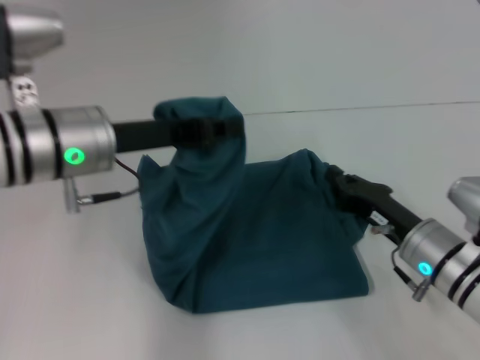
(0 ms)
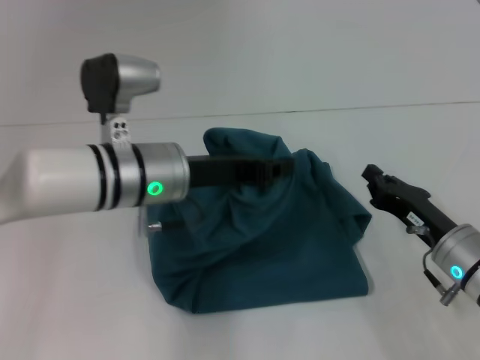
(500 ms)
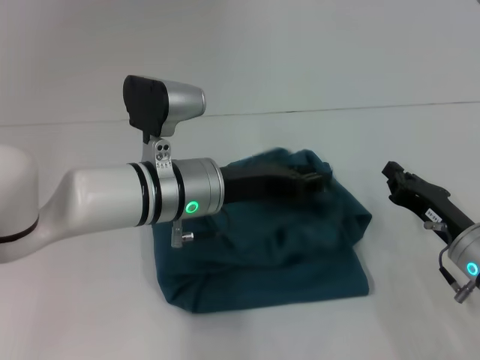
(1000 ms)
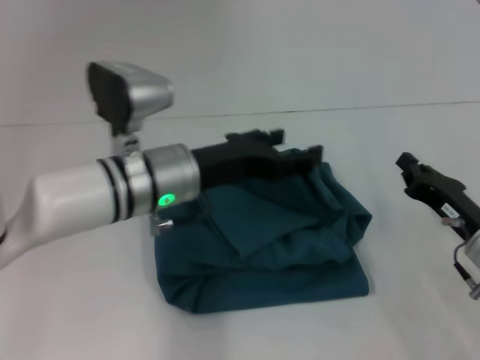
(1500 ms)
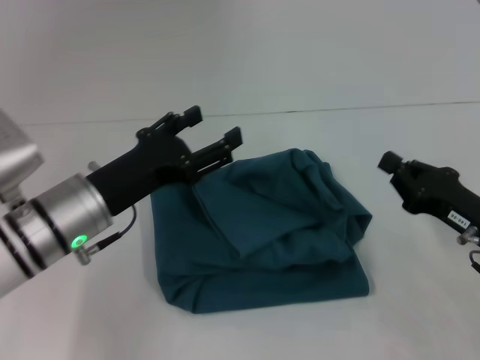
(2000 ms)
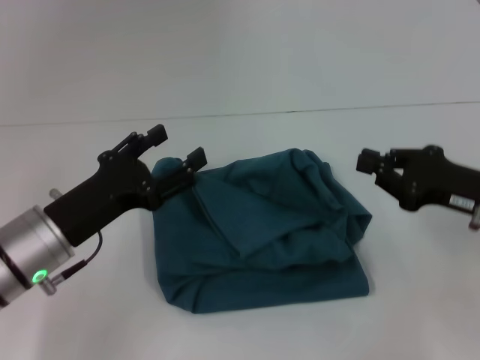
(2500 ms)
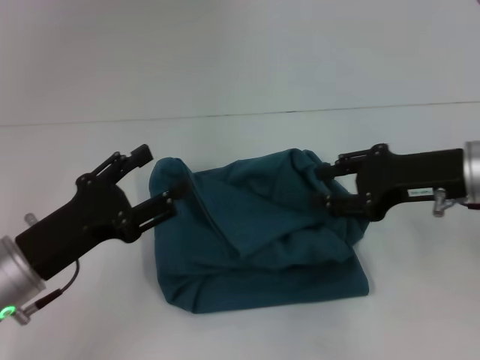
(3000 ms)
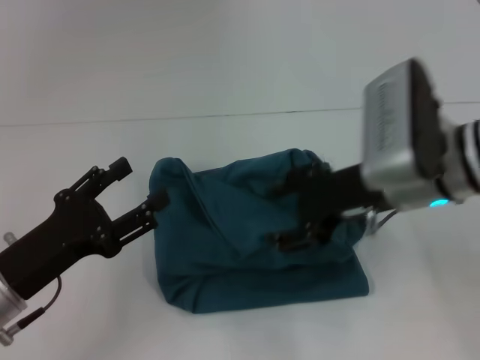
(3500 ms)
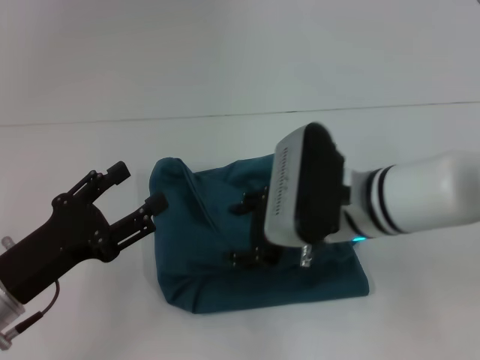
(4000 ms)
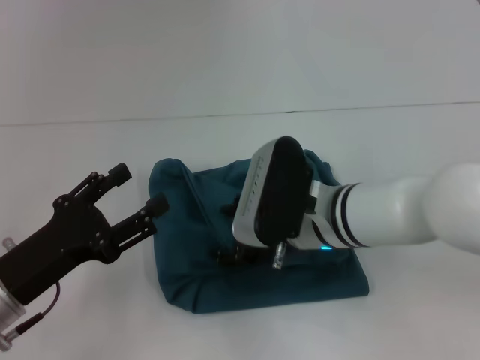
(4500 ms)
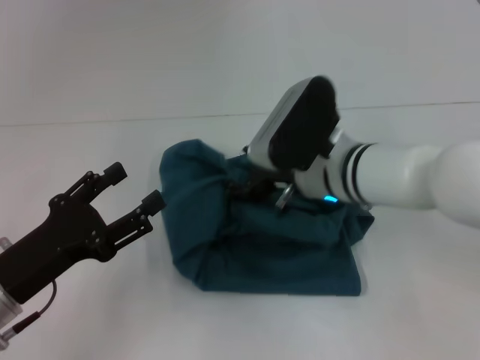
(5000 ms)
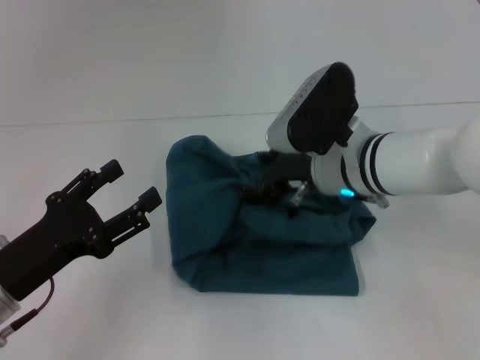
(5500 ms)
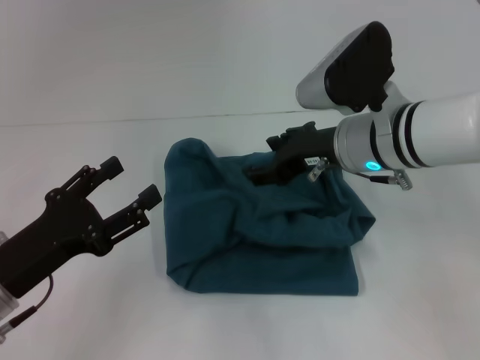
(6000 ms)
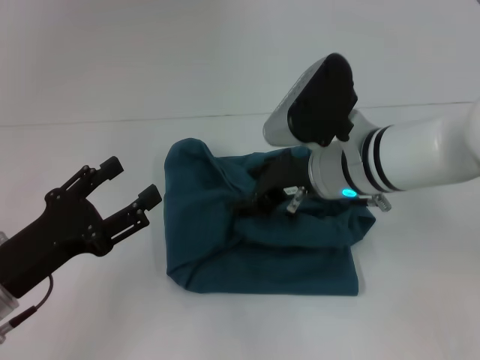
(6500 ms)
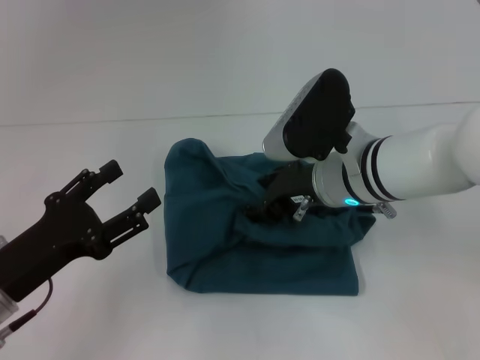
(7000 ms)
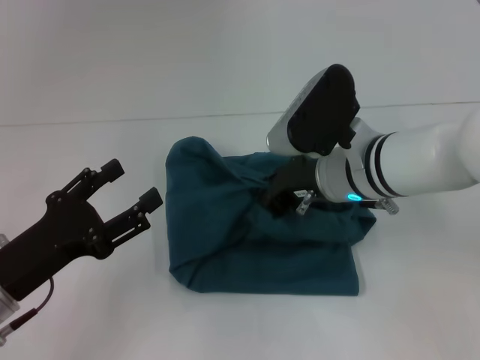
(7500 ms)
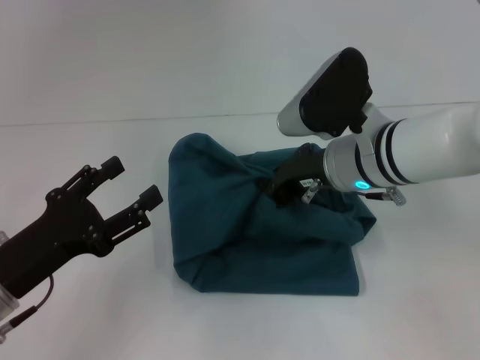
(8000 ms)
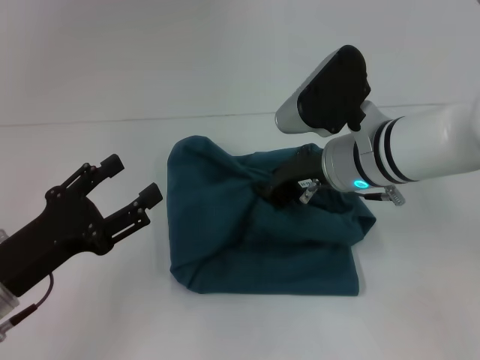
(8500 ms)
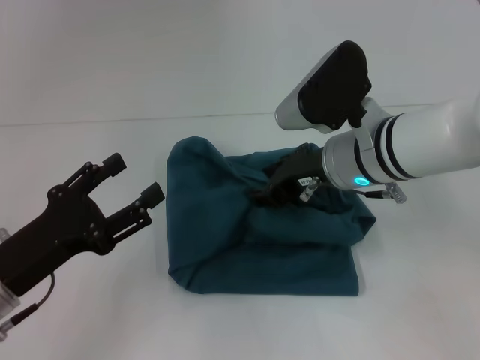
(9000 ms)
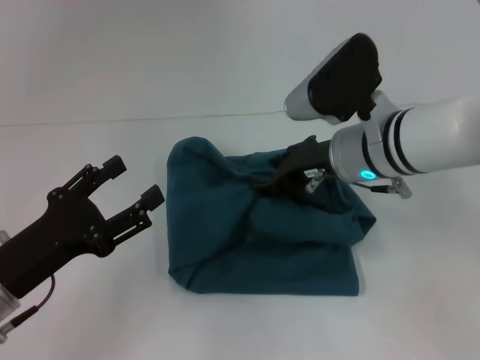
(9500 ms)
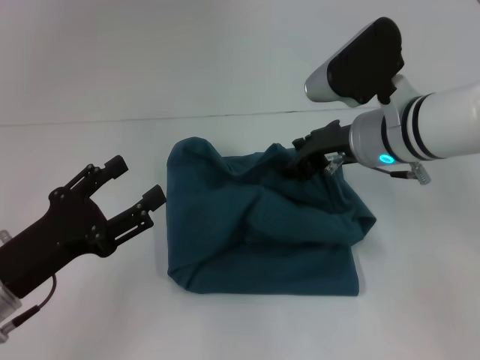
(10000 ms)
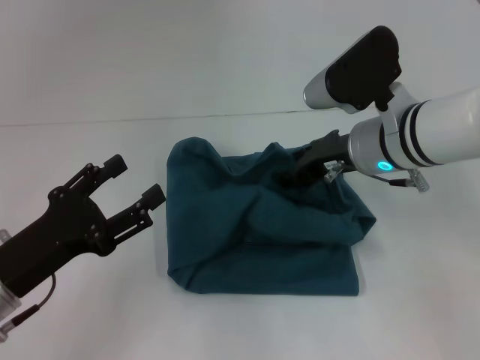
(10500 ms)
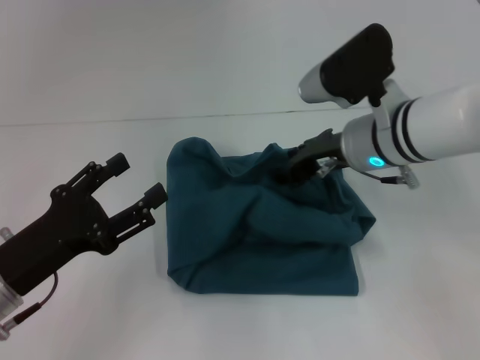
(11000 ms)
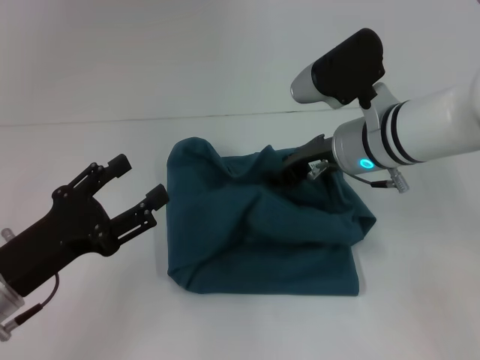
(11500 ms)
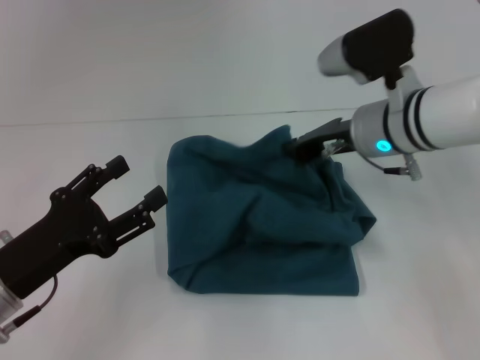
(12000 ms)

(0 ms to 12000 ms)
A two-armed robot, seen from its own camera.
0 ms - 2000 ms: The right gripper moves to the right, roughly 5 cm. Meanwhile the left gripper travels downward by approximately 10 cm, travels to the right and back again, approximately 10 cm each way, and opens its fingers.
2000 ms - 4000 ms: The left gripper goes roughly 10 cm backward and to the left, while the right gripper heads to the left and upward, covering some 20 cm, and opens.
4000 ms - 6000 ms: The right gripper moves roughly 5 cm.
6000 ms - 8000 ms: The right gripper closes.
8000 ms - 10000 ms: The right gripper opens up.
10000 ms - 12000 ms: The right gripper closes.

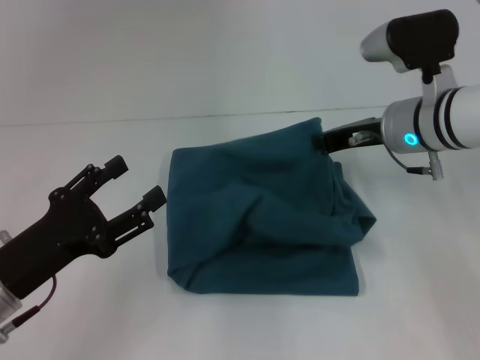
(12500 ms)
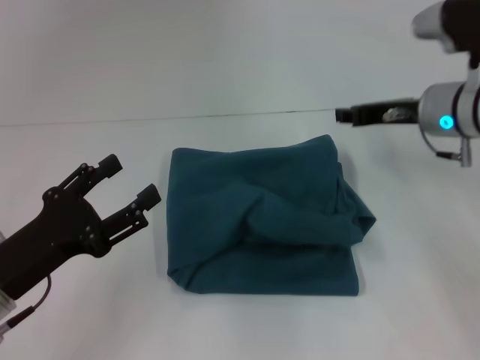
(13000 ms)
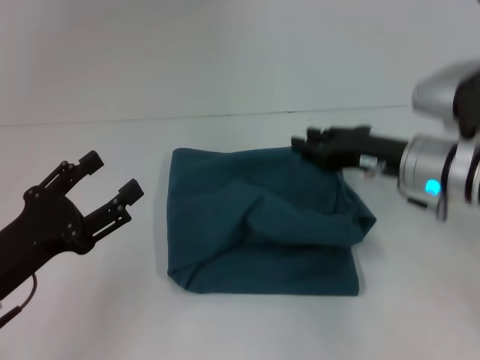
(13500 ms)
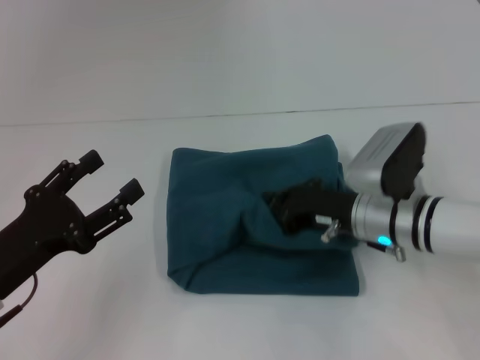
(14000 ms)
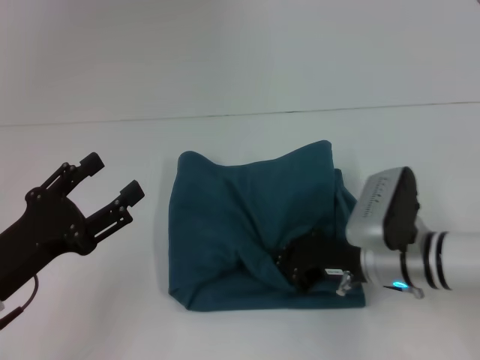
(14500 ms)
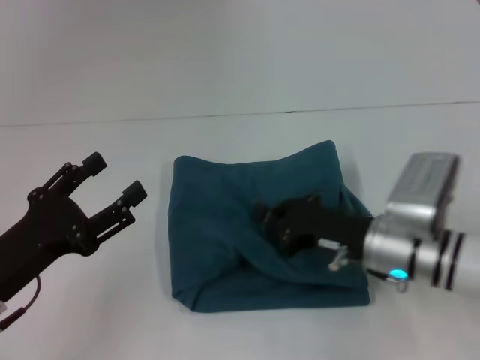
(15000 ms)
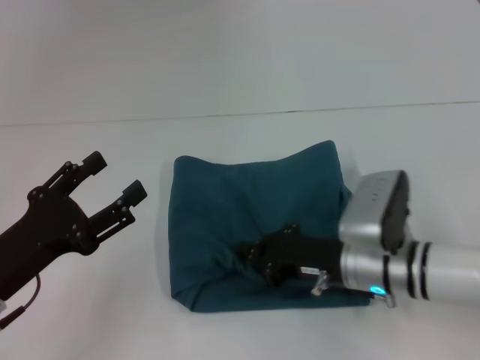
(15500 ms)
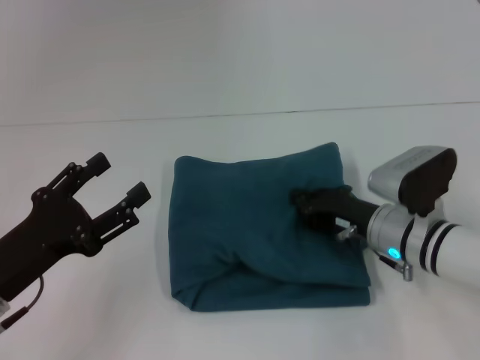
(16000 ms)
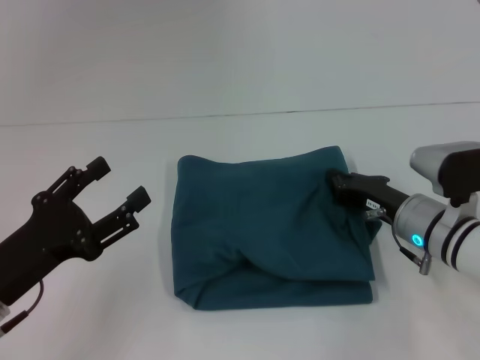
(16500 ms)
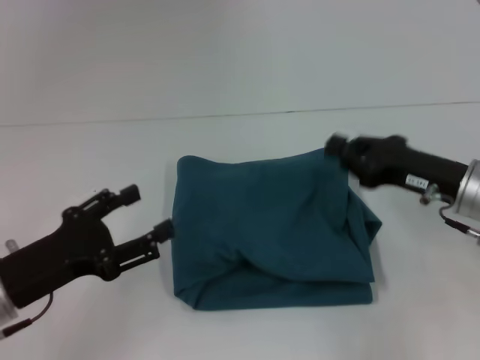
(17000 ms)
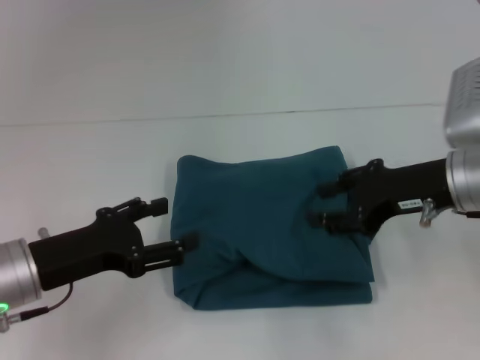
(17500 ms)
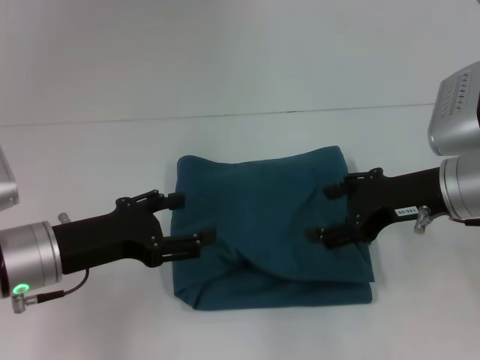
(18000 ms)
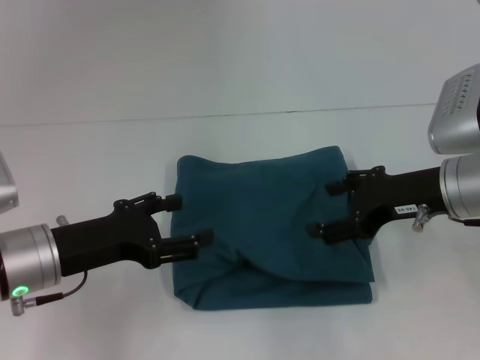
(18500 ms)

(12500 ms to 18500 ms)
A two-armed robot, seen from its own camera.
12500 ms - 14500 ms: The right gripper heads downward and backward, covering about 15 cm, and opens, then closes once more.
16500 ms - 18500 ms: The left gripper goes some 5 cm forward; the right gripper travels upward by some 10 cm, and opens.

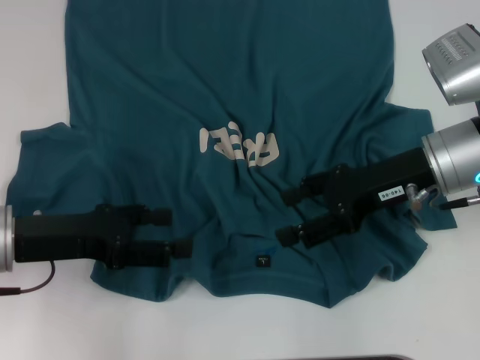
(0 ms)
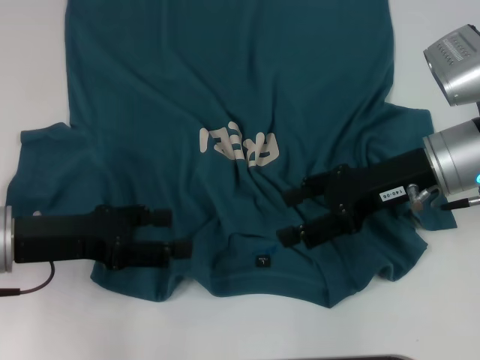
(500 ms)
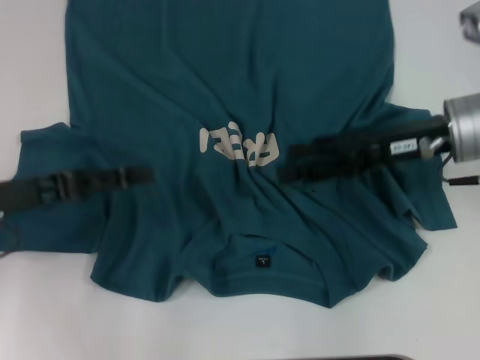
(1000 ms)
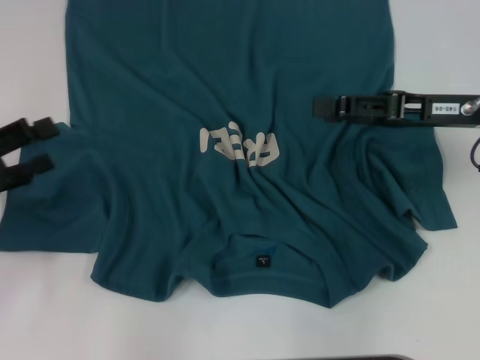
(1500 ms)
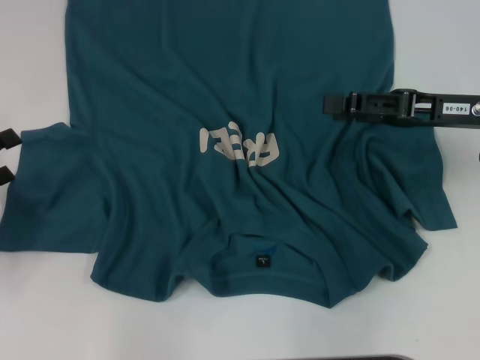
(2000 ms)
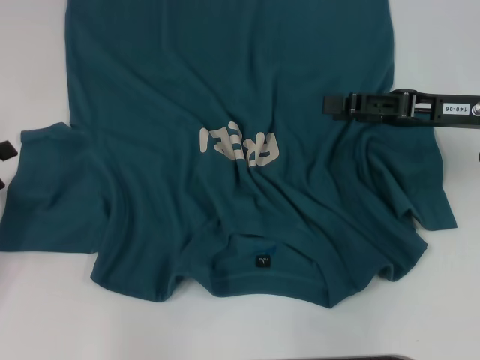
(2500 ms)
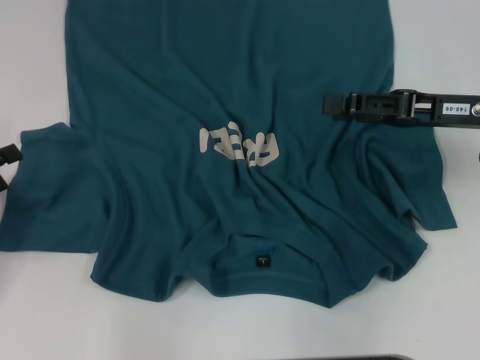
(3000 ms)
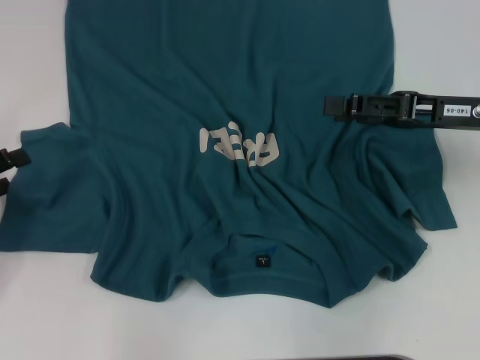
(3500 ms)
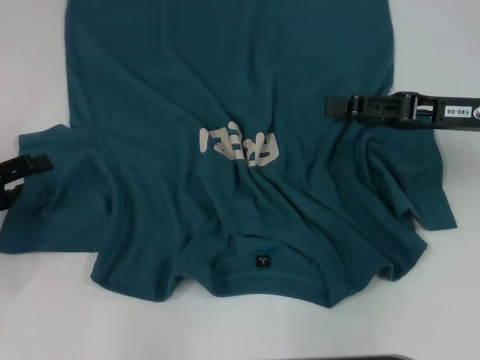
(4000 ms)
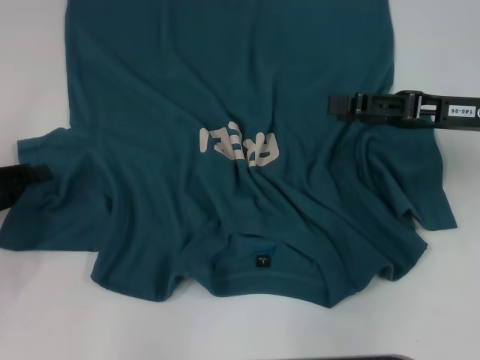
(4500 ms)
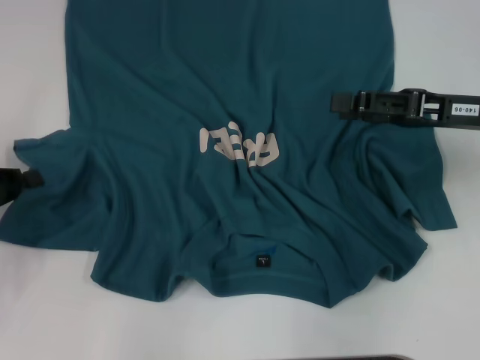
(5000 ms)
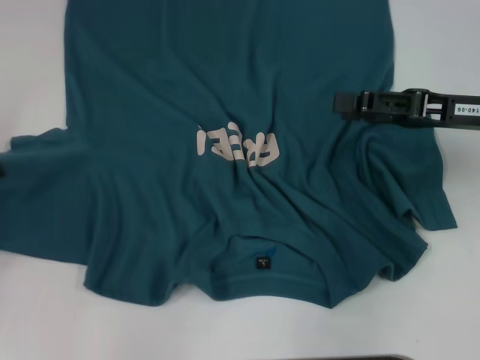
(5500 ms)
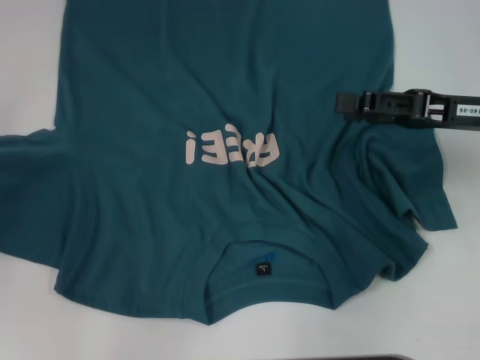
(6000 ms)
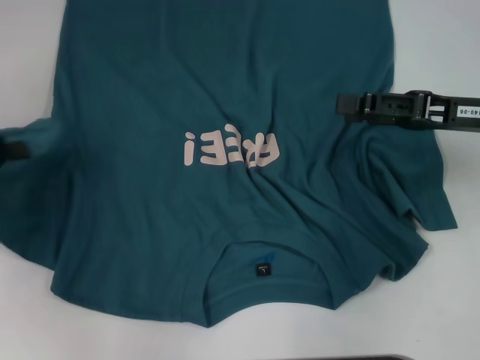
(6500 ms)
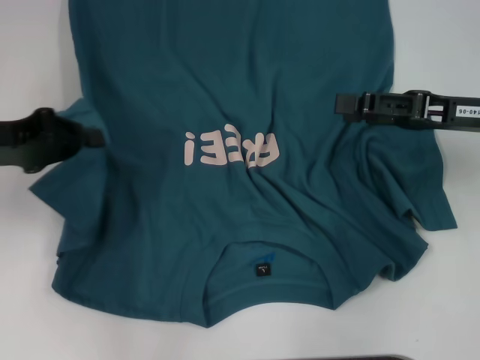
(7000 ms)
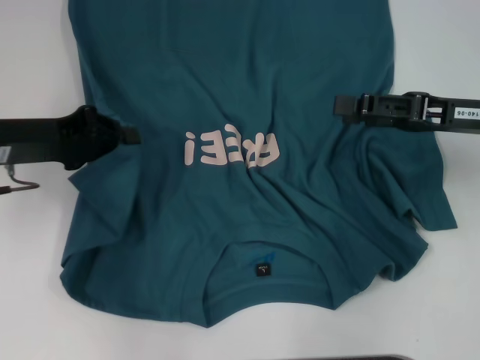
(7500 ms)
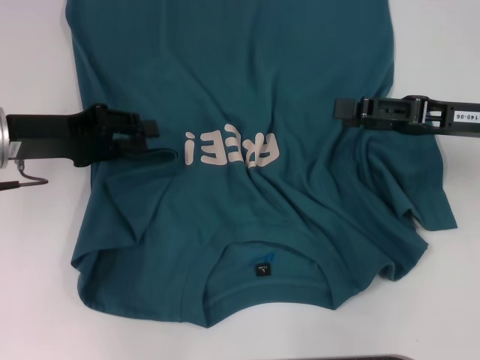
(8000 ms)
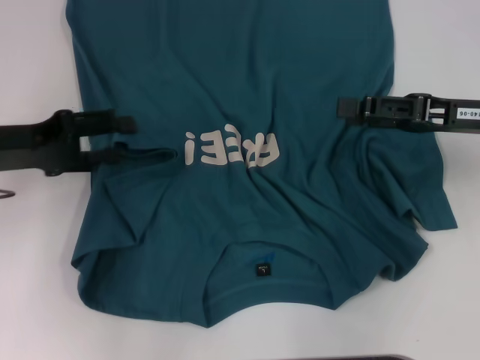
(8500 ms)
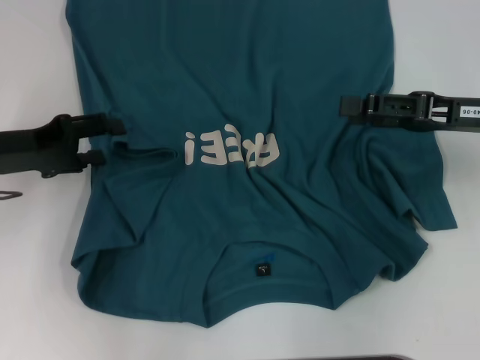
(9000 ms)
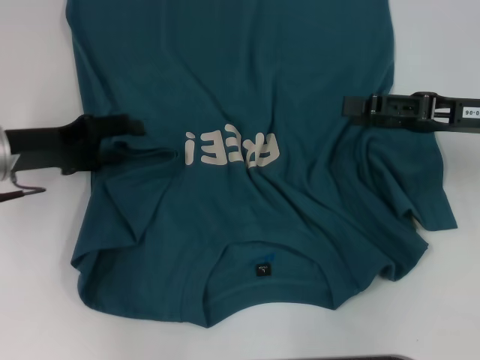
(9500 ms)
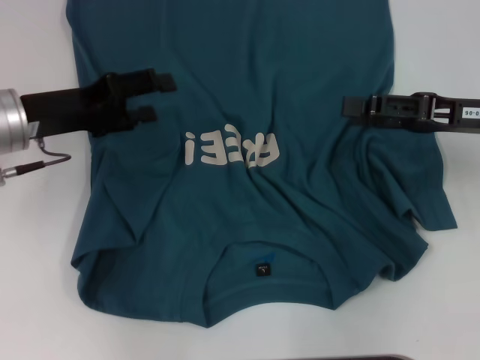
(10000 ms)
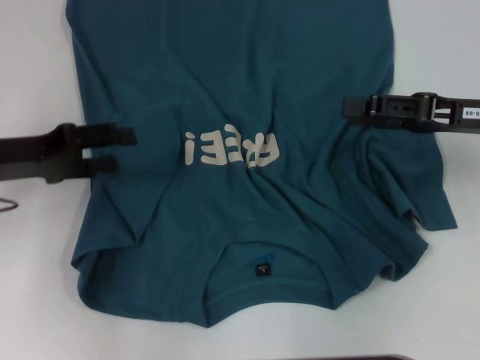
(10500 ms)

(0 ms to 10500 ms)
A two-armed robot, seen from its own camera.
0 ms - 2000 ms: The left gripper goes approximately 10 cm to the left. Meanwhile the right gripper shifts roughly 5 cm to the right.
2000 ms - 4000 ms: The grippers move only a little.
4000 ms - 6500 ms: The left gripper moves upward, approximately 5 cm, and closes its fingers.
6500 ms - 8500 ms: The left gripper shifts some 5 cm to the right, and opens up.
8500 ms - 10500 ms: The grippers stay close to where they were, moving slightly.
